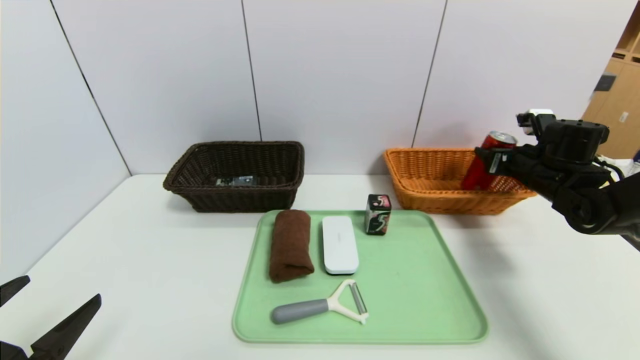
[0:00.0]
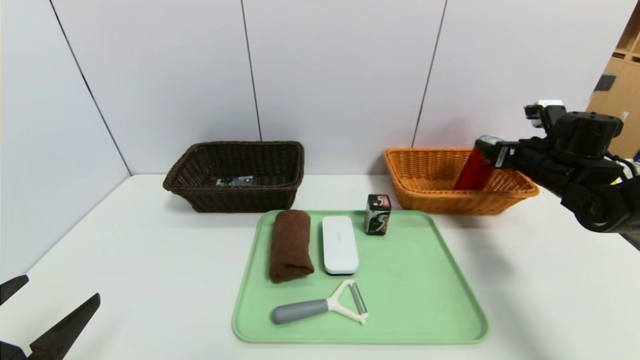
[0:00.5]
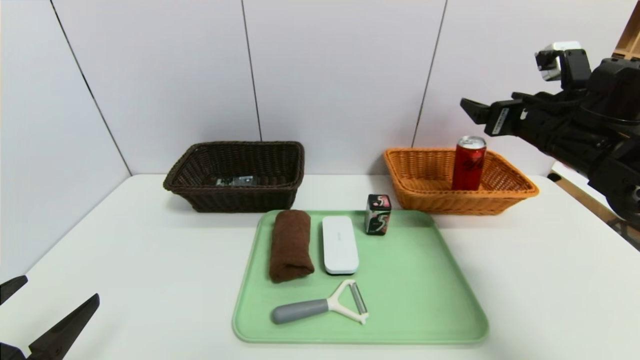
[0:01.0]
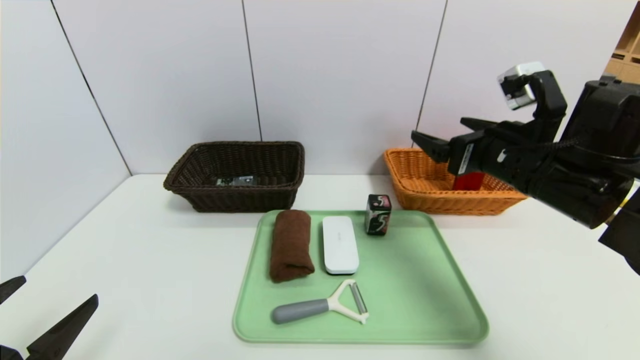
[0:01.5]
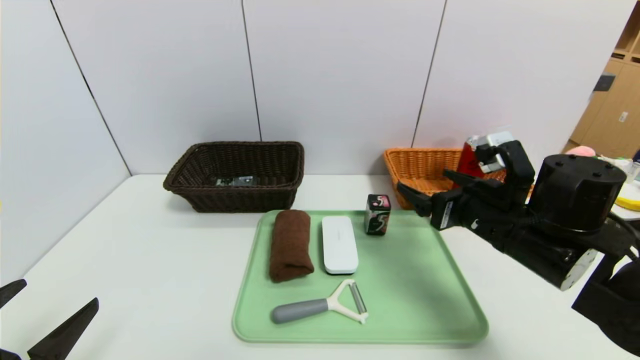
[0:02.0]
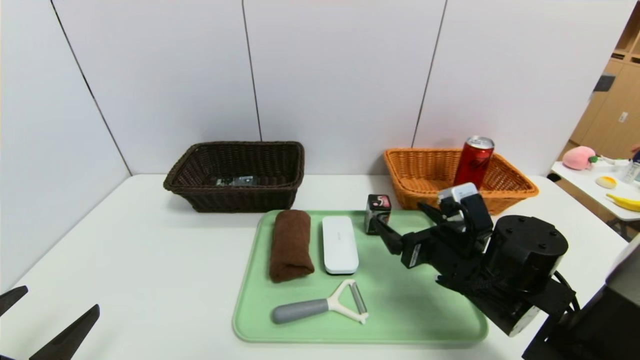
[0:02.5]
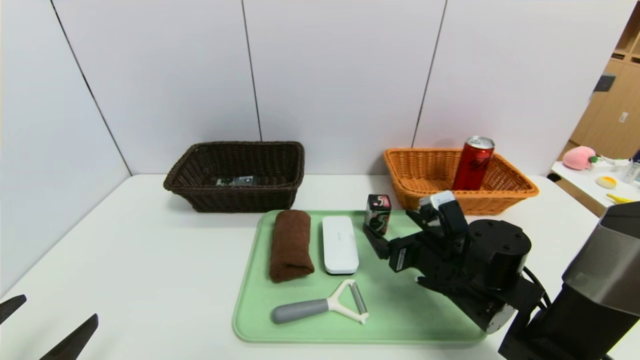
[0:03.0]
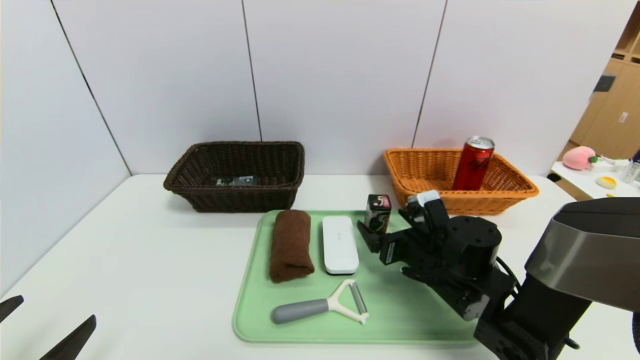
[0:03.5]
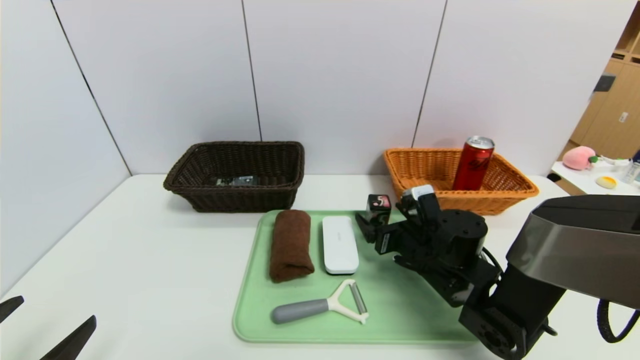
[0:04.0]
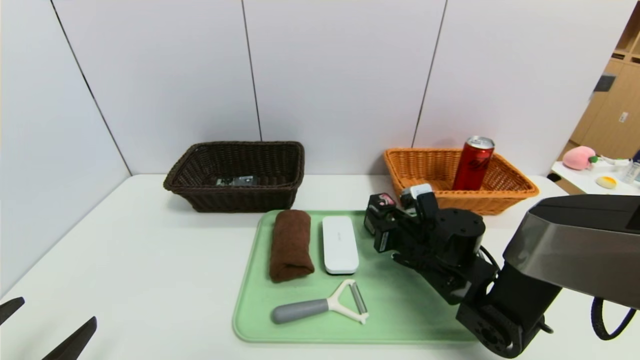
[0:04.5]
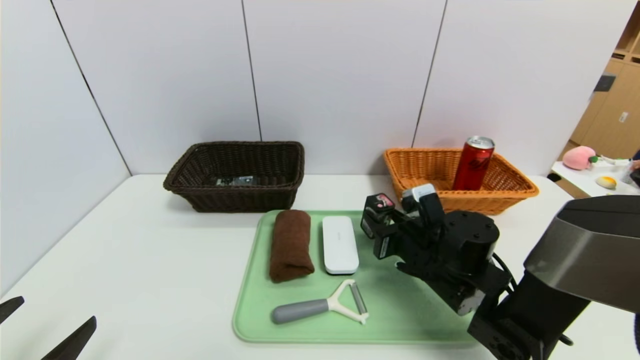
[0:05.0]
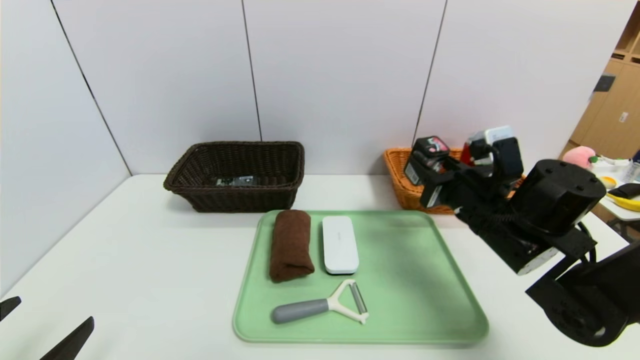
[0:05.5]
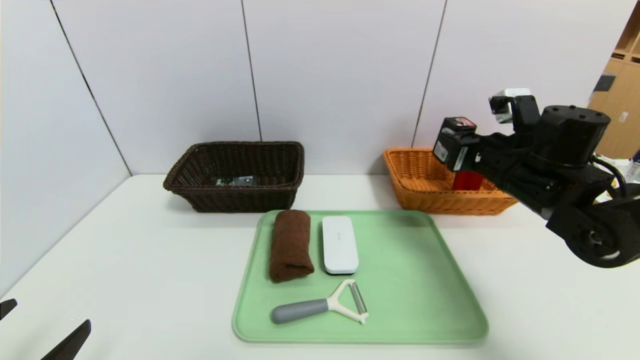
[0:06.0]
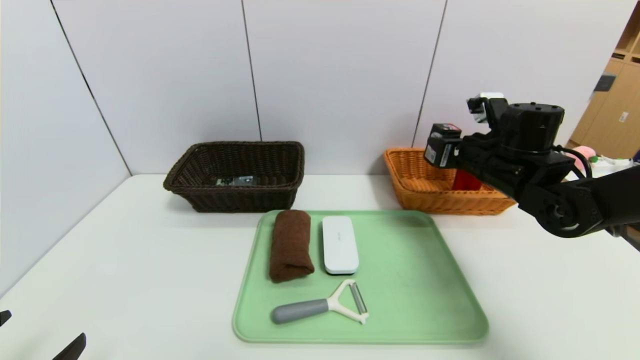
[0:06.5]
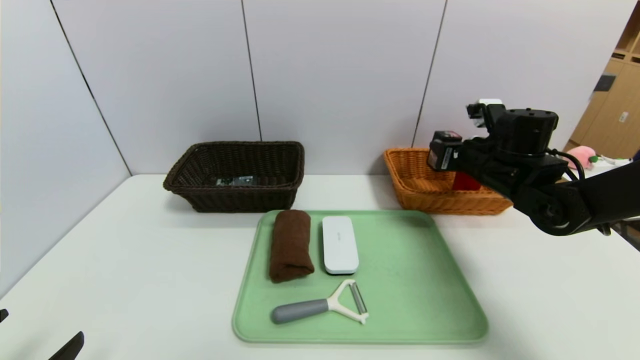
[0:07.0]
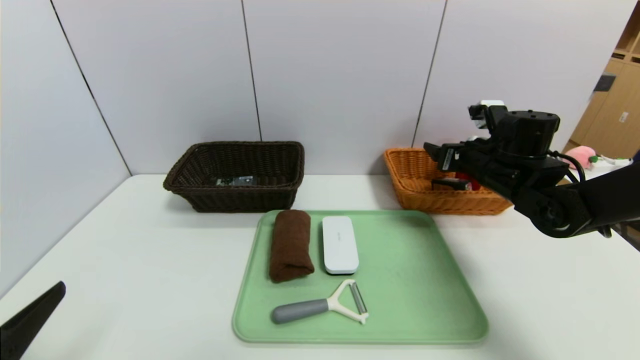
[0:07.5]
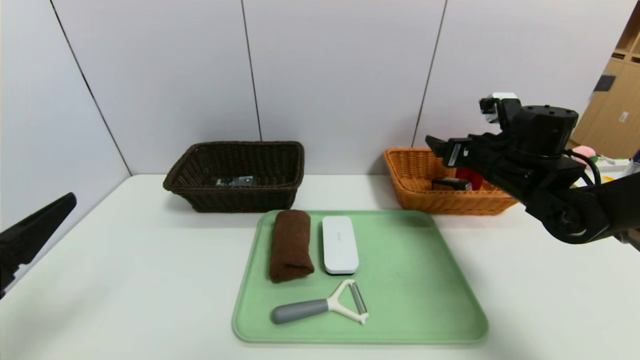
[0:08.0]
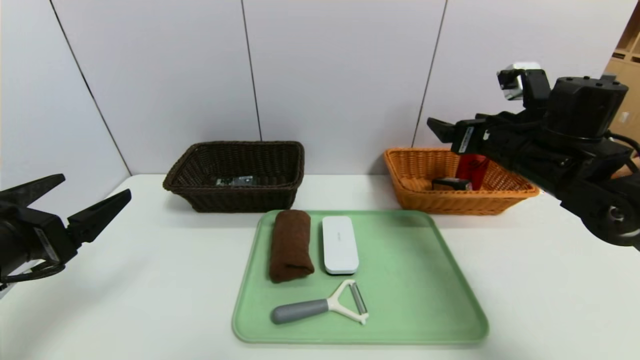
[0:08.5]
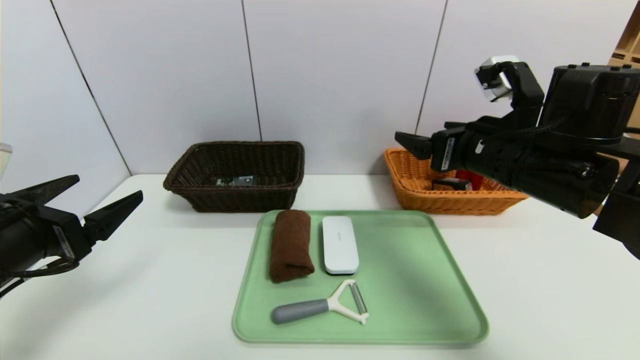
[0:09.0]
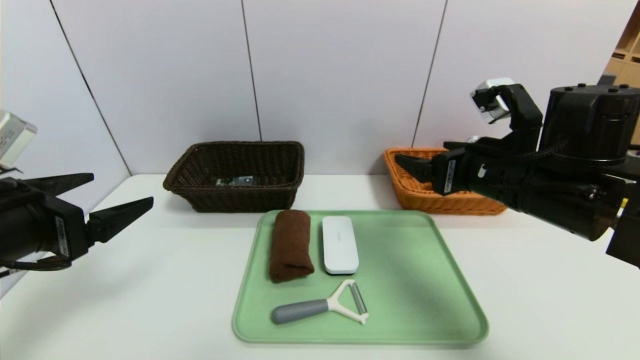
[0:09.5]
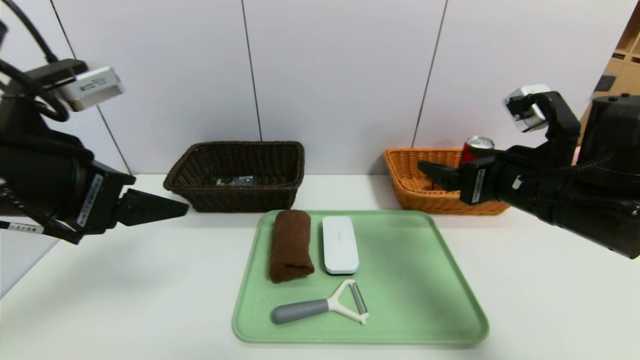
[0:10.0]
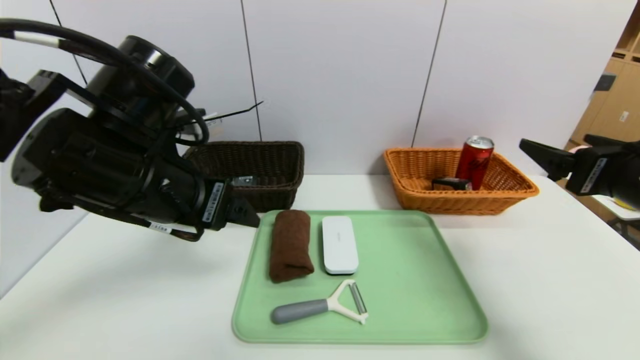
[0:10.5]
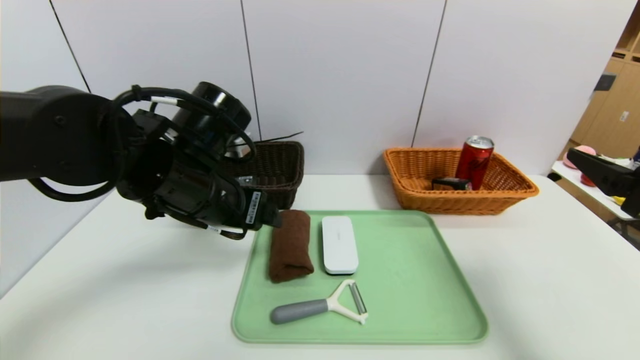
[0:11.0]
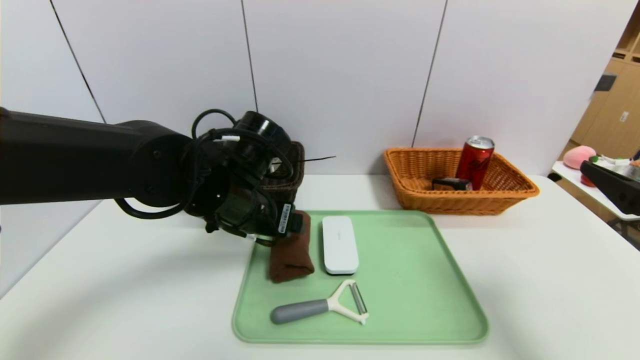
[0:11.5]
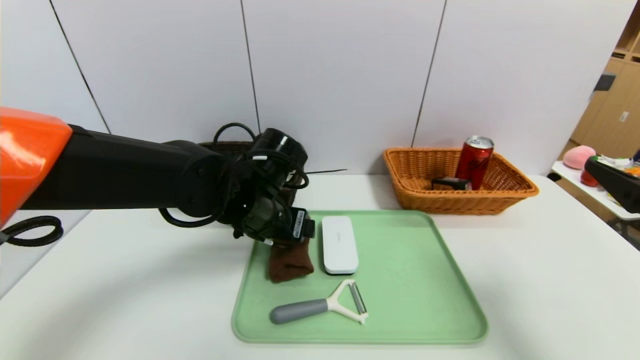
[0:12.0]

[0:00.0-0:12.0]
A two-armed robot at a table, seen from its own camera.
Task of the whole recording: place the food in the right basket with the right gripper, and place the non food items in the left basket with the left gripper.
Step, 0:00.5 to 0:07.0: Grasp the square chewing gum and put it in the right basket.
0:00.0 to 0:02.0: The right gripper shifts some 20 cm to the left and backward, and opens.
0:02.0 to 0:04.0: The right gripper moves downward, forward and to the left, about 15 cm.
0:04.0 to 0:06.0: The right gripper heads upward and to the right, covering approximately 15 cm, and closes up.
0:06.0 to 0:08.0: The left gripper shifts about 10 cm upward and forward. Meanwhile the right gripper opens.
0:08.0 to 0:10.0: The left gripper goes about 15 cm upward, to the right and forward; the right gripper heads backward, covering some 15 cm.
0:10.0 to 0:12.0: The right gripper goes roughly 15 cm backward and to the right. Meanwhile the left gripper moves to the right, downward and forward, some 25 cm.

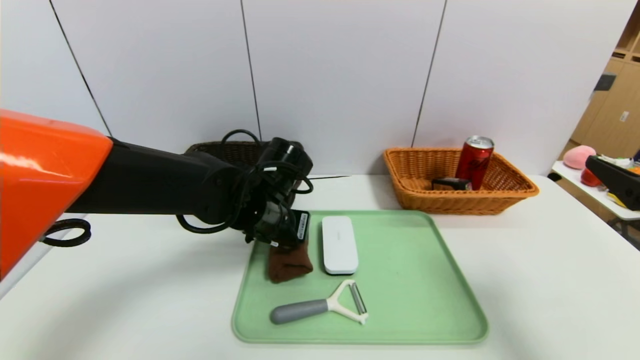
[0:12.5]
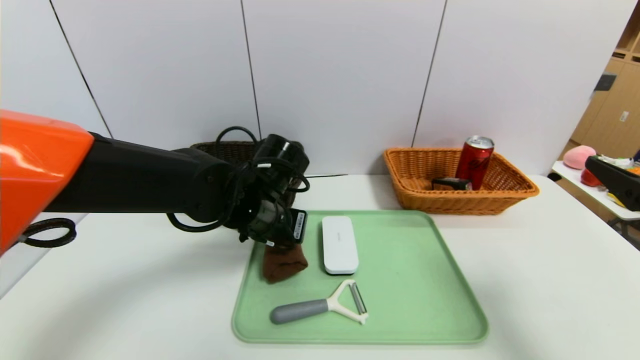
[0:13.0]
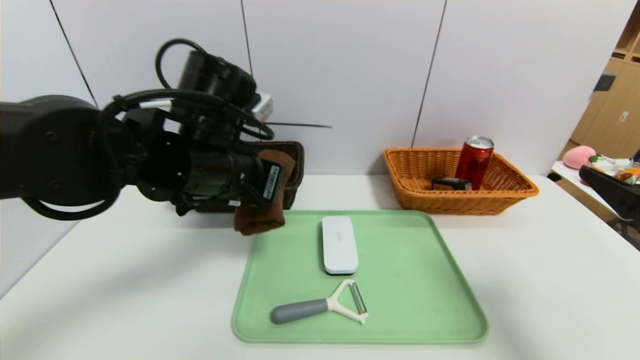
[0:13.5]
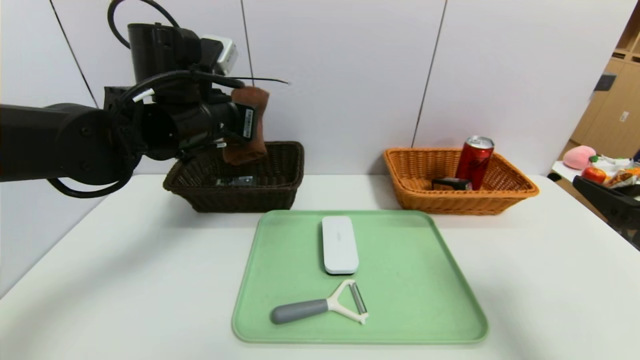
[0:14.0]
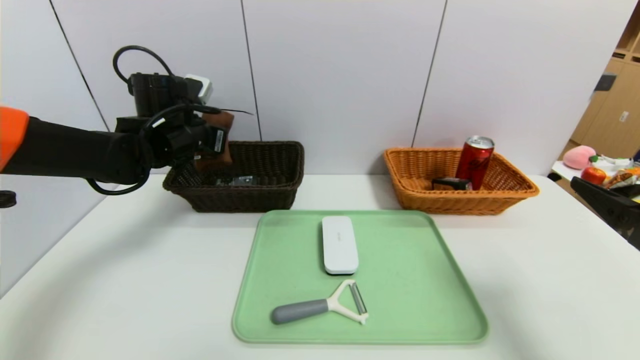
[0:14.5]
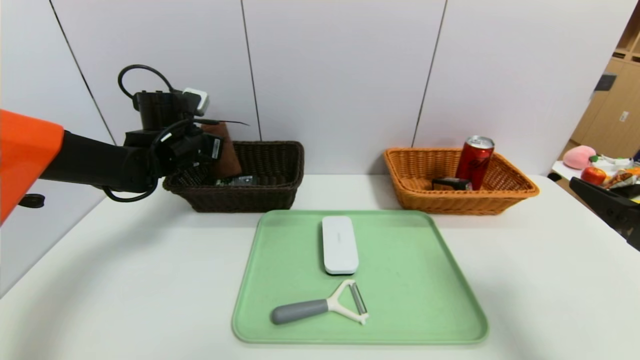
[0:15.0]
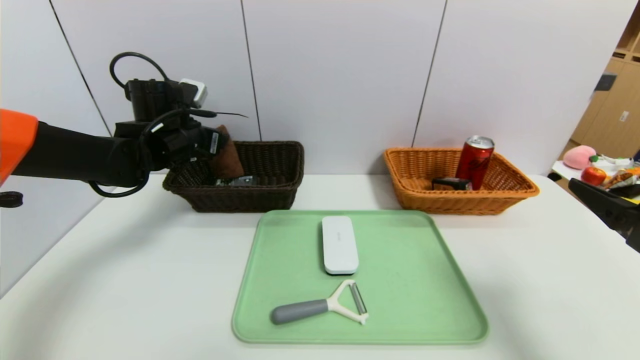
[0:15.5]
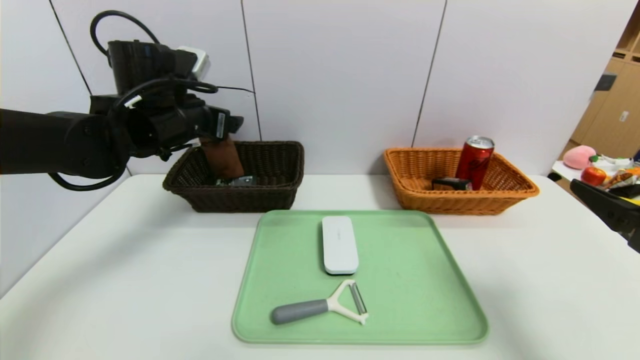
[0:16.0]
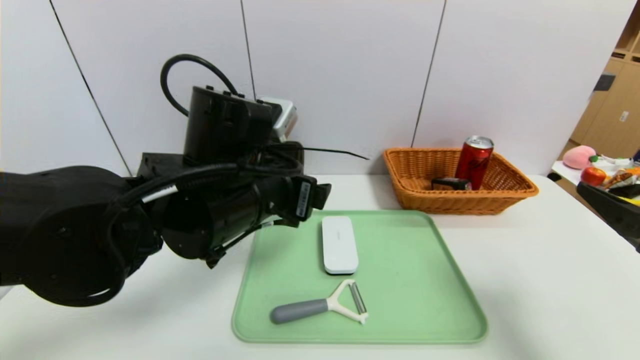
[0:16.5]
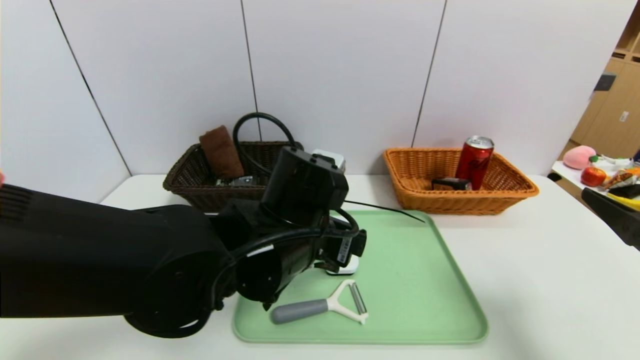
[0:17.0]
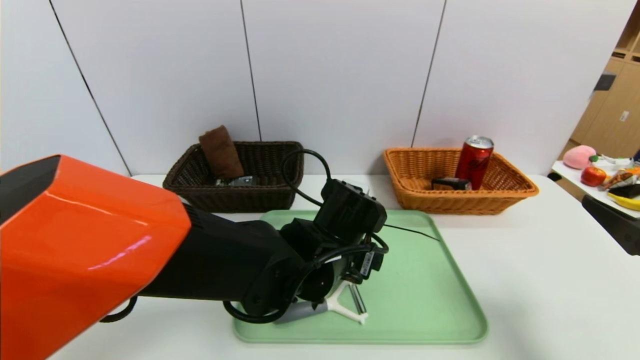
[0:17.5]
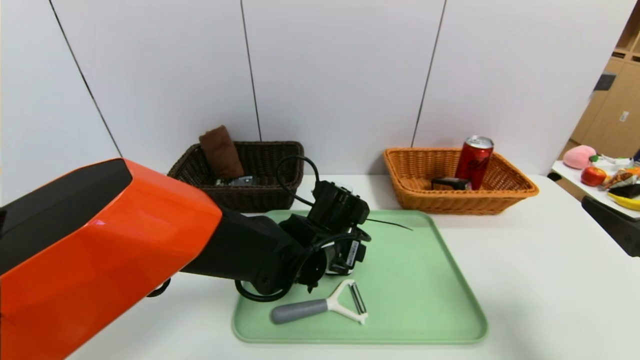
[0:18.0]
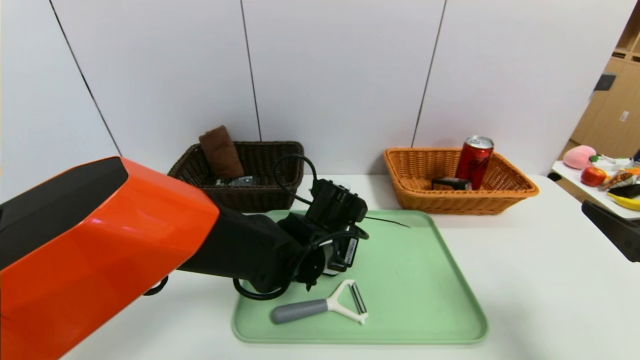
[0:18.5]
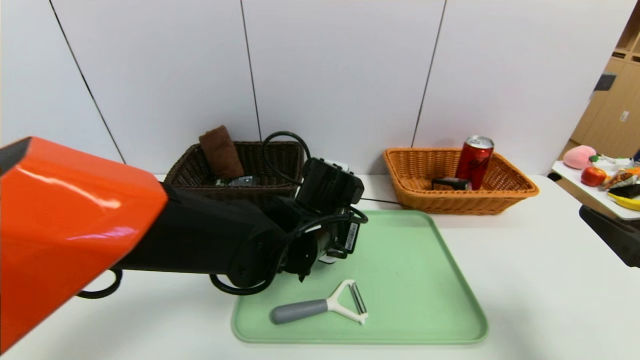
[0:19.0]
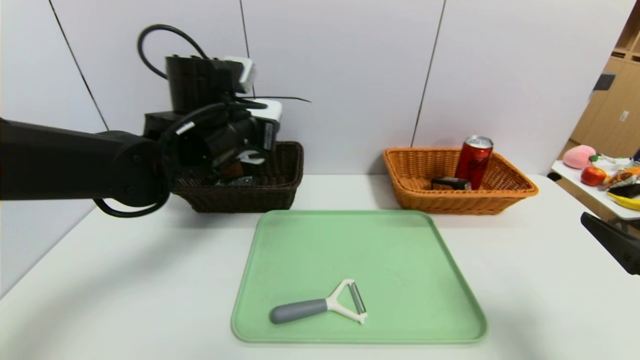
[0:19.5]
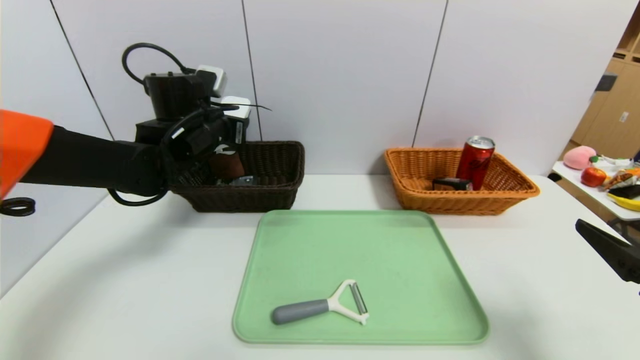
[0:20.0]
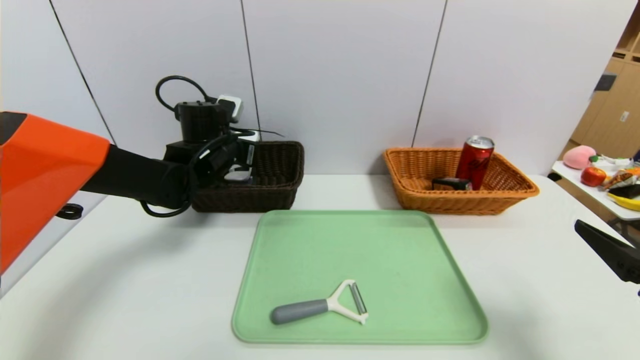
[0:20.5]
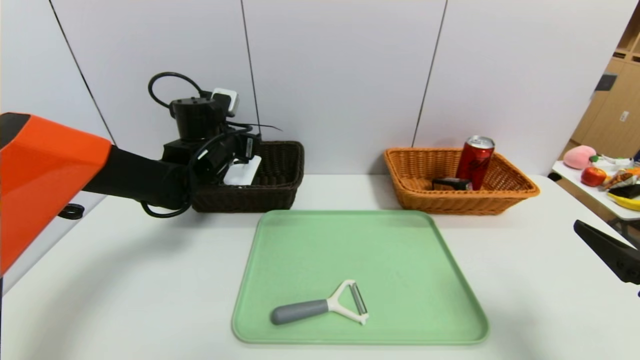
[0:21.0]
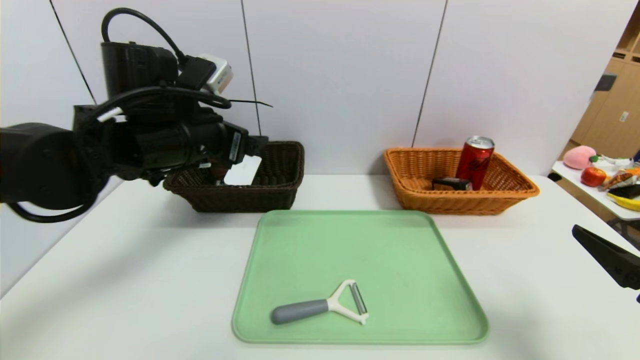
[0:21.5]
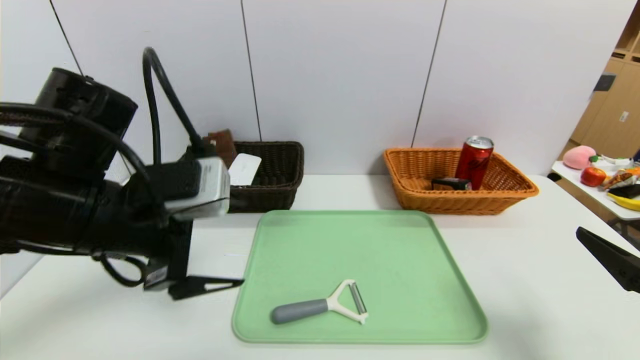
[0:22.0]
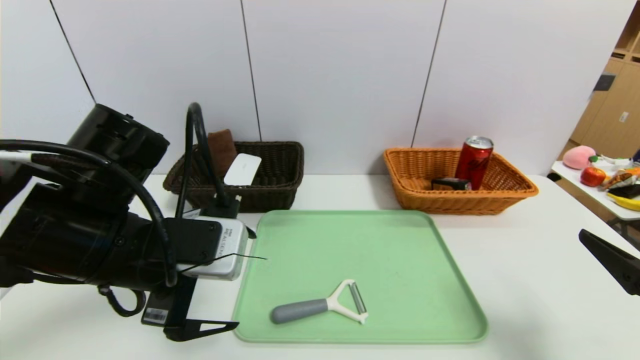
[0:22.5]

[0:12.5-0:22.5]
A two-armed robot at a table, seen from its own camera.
Task of the whole recording: place the food in the right basket with the right gripper, and place the non food items in the left basket with the left gripper.
Step, 0:12.5 to 0:15.0: Grasp the brown towel and put it in the left basket.
Step, 0:15.5 to 0:20.5: Grasp the glasses case and put it in the left basket.
0:12.5 to 0:14.5: The left gripper shifts roughly 20 cm to the left, forward and upward, and closes.
0:14.5 to 0:16.5: The left gripper heads backward and to the right, covering roughly 20 cm, and opens.
0:16.5 to 0:18.5: The left gripper heads downward, to the right and forward, covering approximately 15 cm, and closes.
0:18.5 to 0:20.5: The left gripper is displaced to the left, forward and upward by roughly 25 cm.
0:20.5 to 0:22.5: The left gripper heads backward, covering about 25 cm, and opens up.
